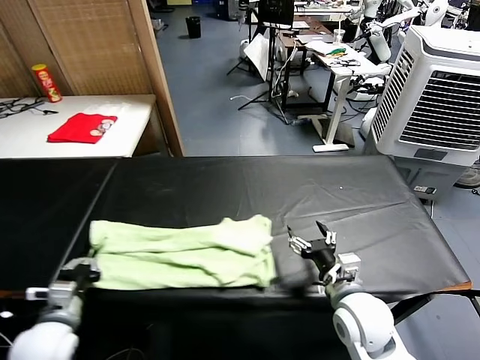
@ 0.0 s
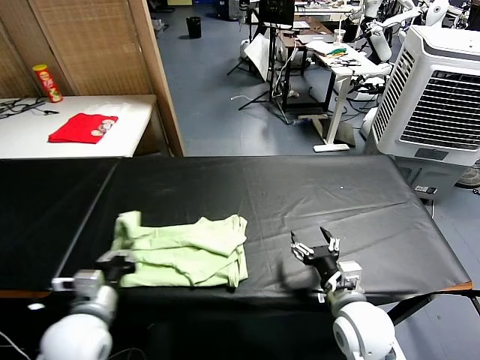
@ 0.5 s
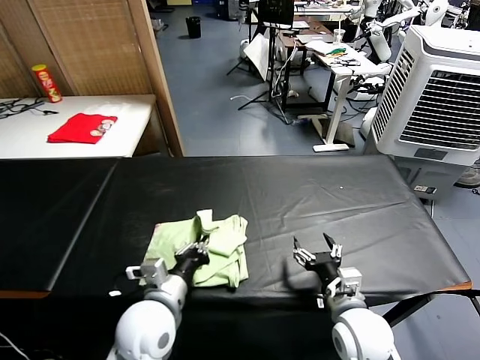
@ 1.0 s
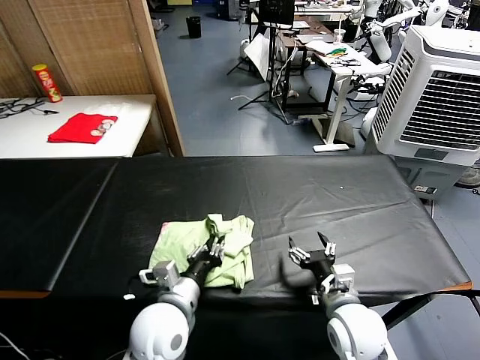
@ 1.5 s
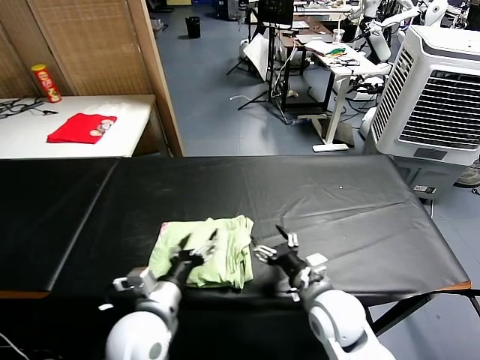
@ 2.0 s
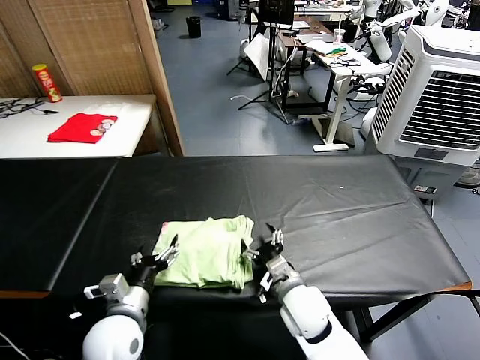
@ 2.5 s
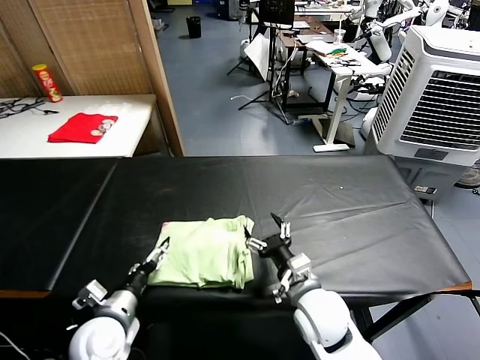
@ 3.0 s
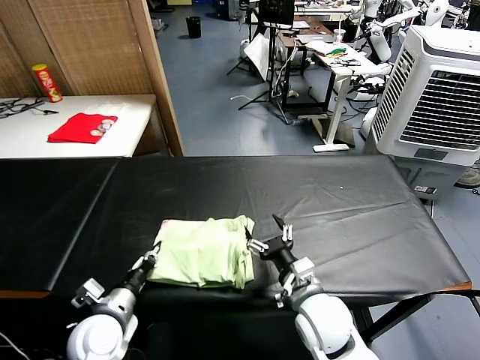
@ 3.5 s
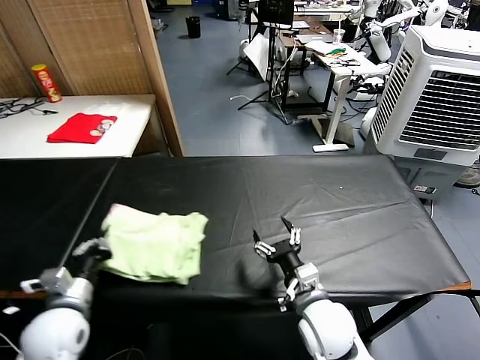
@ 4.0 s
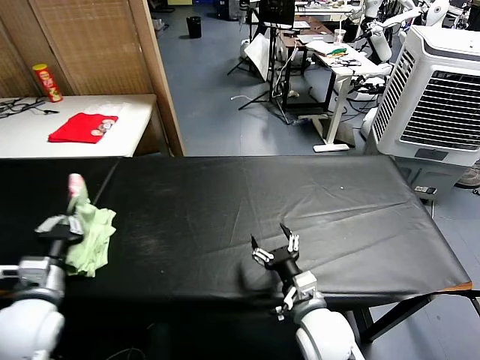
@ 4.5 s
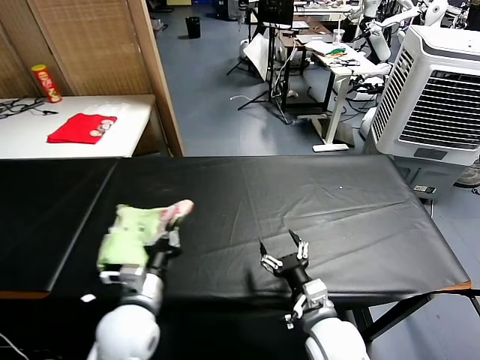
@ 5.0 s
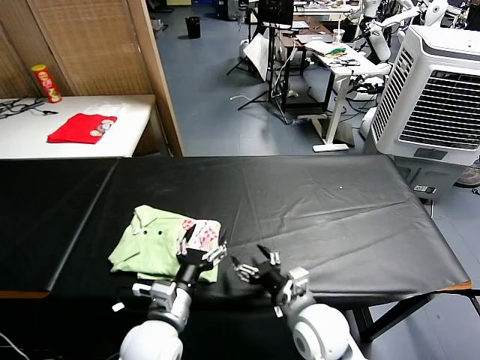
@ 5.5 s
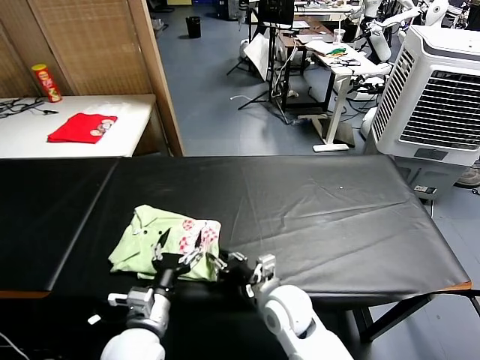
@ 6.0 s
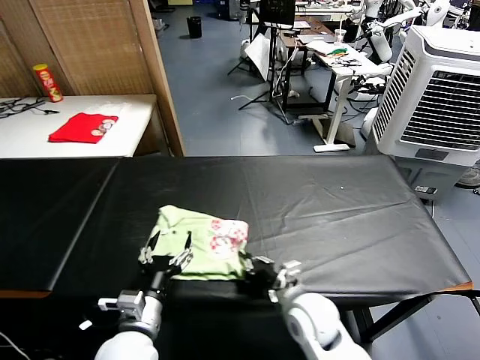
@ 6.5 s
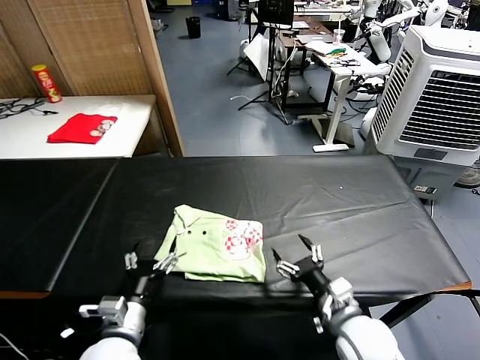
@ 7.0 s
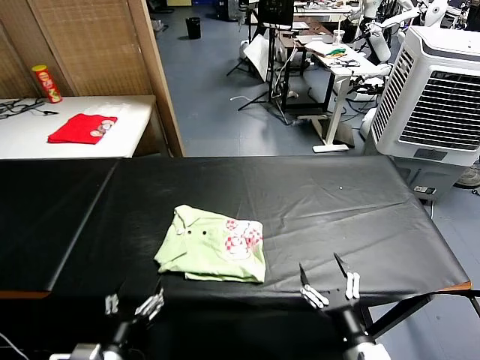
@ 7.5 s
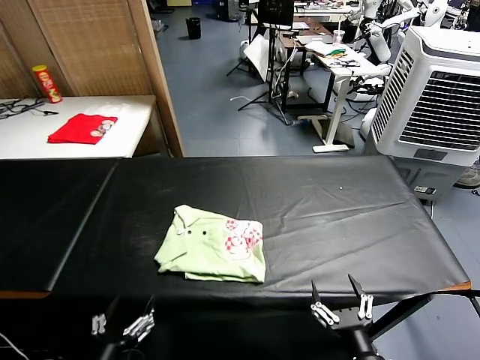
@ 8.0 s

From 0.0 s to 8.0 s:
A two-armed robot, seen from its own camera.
Task of the whole recording: fold and organize the clothes.
Step, from 0.0 s to 1.5 s: use the left gripper to drag the left edge of the fabric to the left and folds it over the right edge.
Step, from 2.0 s to 5.0 s: Flip the folded clothes over with left gripper.
Step, from 5.5 s to 6.5 s: Drag the clothes to the center of the table.
From 0.0 s to 2.0 s: The left gripper shifts some 20 cm to the right, and opens its fingers; the right gripper moves some 5 cm.
From 2.0 s to 4.0 s: The left gripper moves to the left, some 15 cm, and closes.
From 4.0 s to 6.0 s: The left gripper goes approximately 15 cm to the right, and opens its fingers, while the right gripper heads to the left, covering some 5 cm, and closes up.
From 6.0 s to 8.0 s: The right gripper travels backward and to the right by some 25 cm, and opens, while the left gripper travels backward and to the left by about 15 cm.

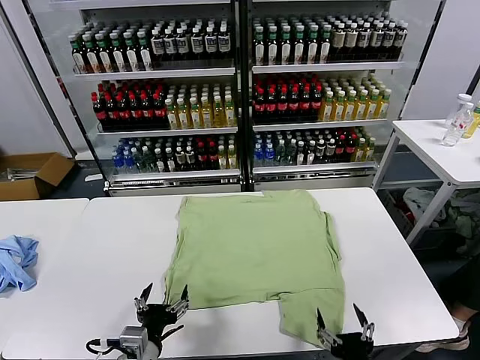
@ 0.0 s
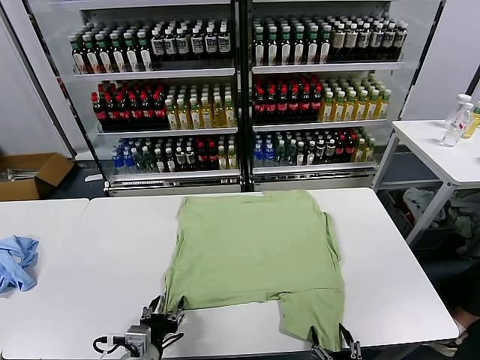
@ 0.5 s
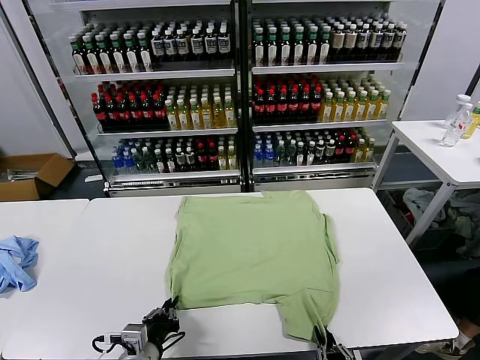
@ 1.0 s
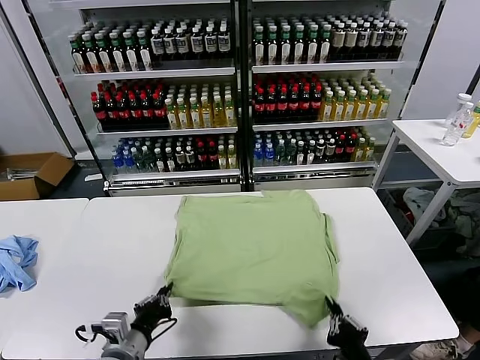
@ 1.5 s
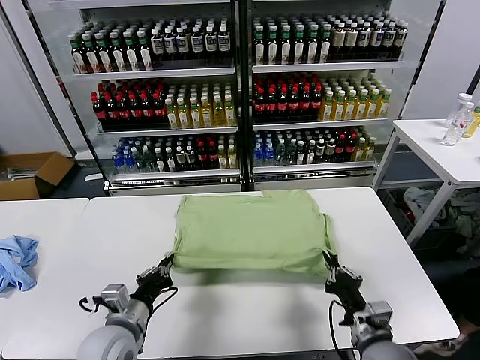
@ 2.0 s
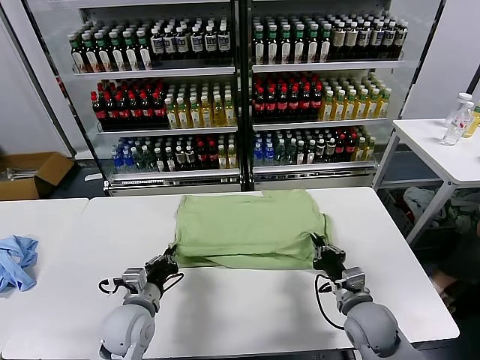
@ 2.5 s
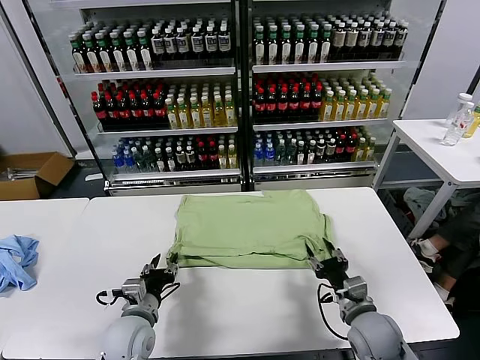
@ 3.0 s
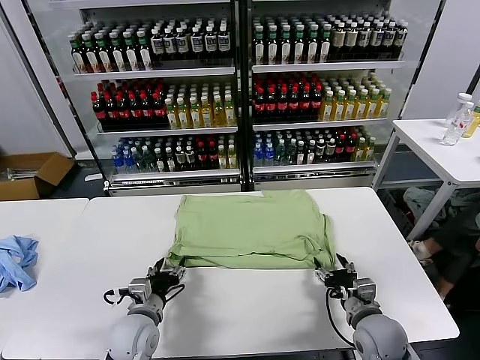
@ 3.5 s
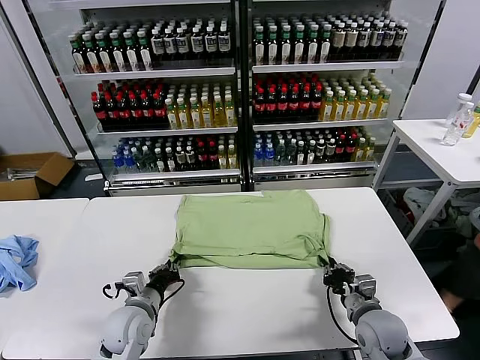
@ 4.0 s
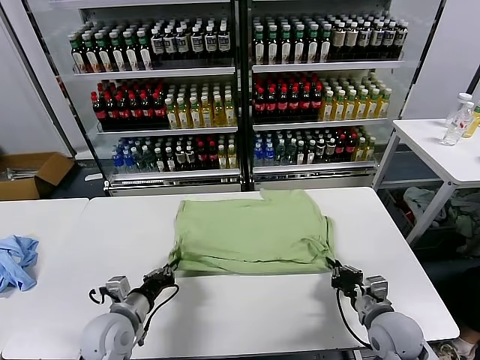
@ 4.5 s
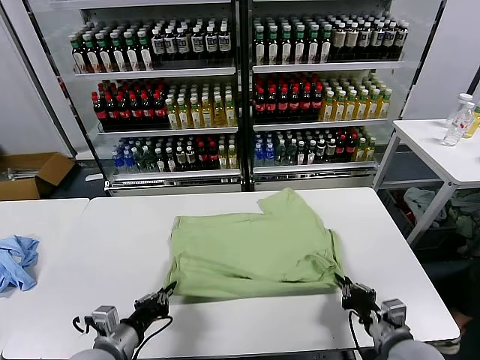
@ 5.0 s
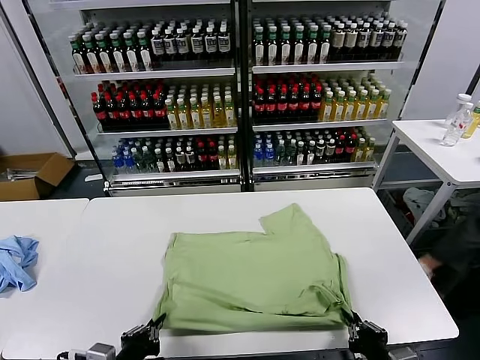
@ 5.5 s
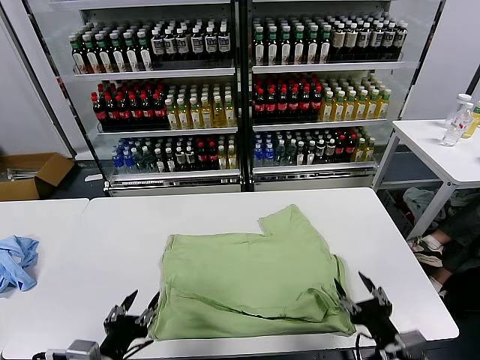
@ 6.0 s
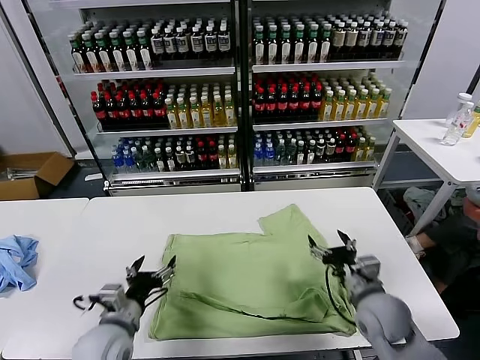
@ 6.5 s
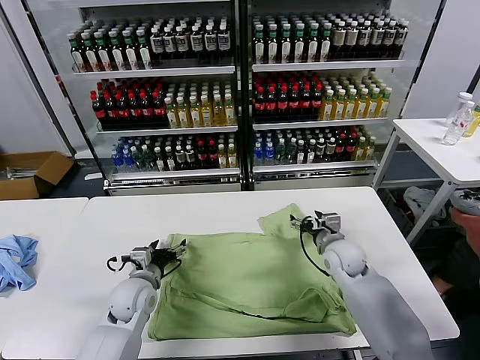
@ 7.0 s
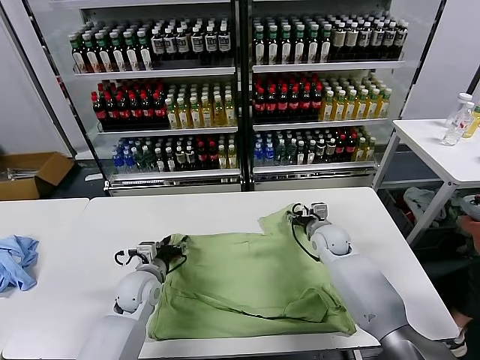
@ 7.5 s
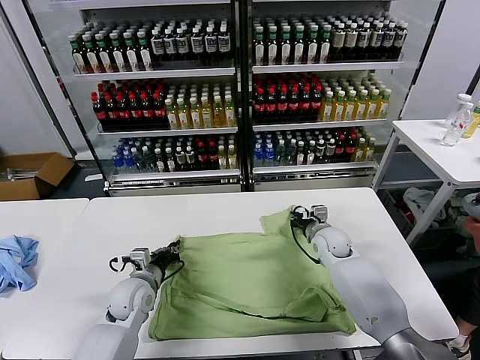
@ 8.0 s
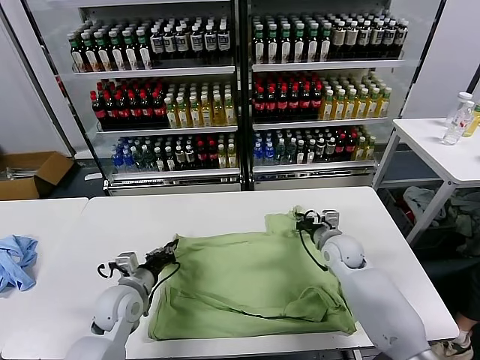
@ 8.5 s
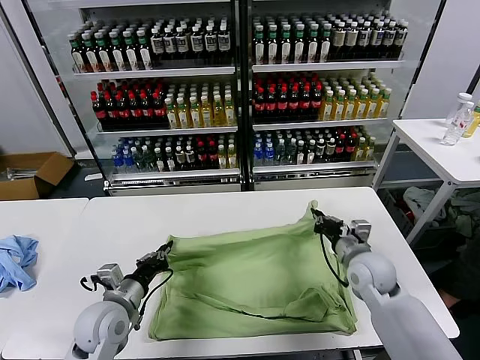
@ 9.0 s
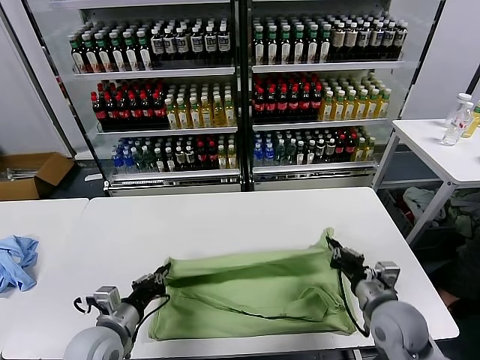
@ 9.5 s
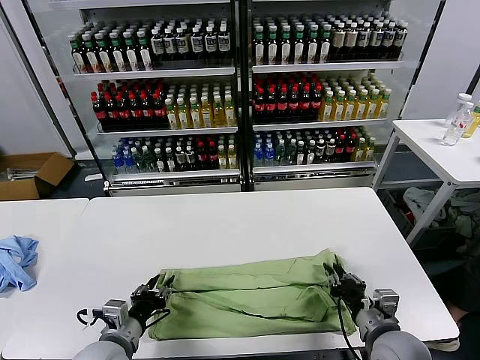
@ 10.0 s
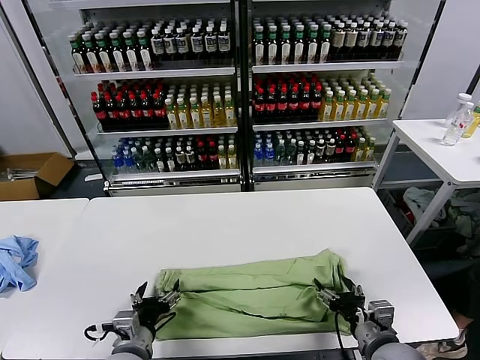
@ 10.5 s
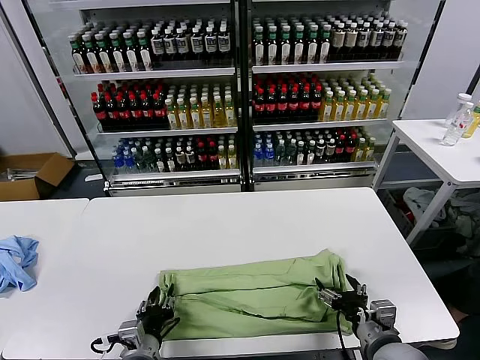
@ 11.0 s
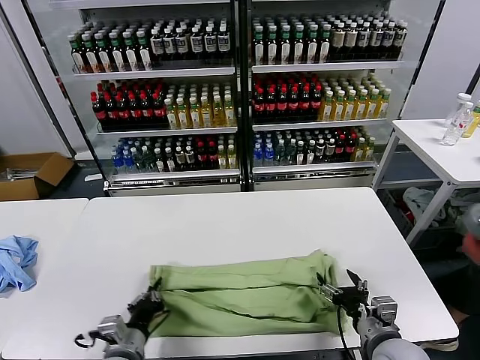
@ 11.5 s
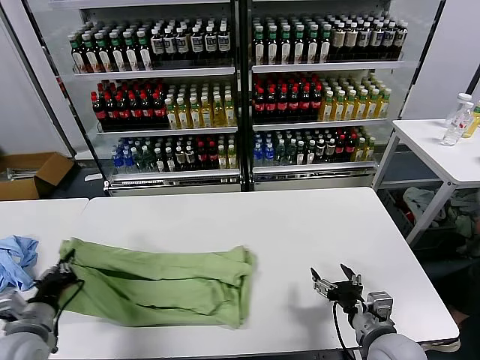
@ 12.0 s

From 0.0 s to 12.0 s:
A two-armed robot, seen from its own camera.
Task of the whole recording: fold and organize the clothes.
Step, from 0.0 s to 1.0 s: use both grippers simultaneously to clamp the lower edge of the clothing fabric.
Step, from 1.5 s to 2.5 s: use both grippers to drag the lower edge of the fabric forward and fold it over the upper edge.
Step, from 3.0 s to 5.5 s: Drag the clothes downward with both gripper.
Step, from 6.0 s to 8.0 s: use both grippers simultaneously to clamp the upper edge of the clothing fabric.
Step, from 8.5 s to 10.0 s: use both grippers to drag the upper edge of the fabric backward and fold it over the lower edge.
Step, from 10.5 s to 11.0 s: use the left gripper to clamp the left edge of the fabric.
From 2.0 s to 4.0 s: The left gripper shifts roughly 10 cm downward and forward, and opens, then closes once more; the right gripper ends up roughly 5 cm from where it was, and opens, then closes again.
From 4.0 s to 6.0 s: The grippers both shift backward and upward by about 15 cm. The left gripper opens its fingers, while the right gripper opens its fingers.
From 6.0 s to 8.0 s: The grippers both shift forward by some 30 cm. The right gripper closes its fingers, while the left gripper closes.
From 8.0 s to 10.0 s: The right gripper shifts roughly 30 cm backward, and opens. The left gripper travels backward by roughly 15 cm, and opens up.
From 10.0 s to 12.0 s: The left gripper shifts about 15 cm to the left, and closes its fingers, while the right gripper opens its fingers.

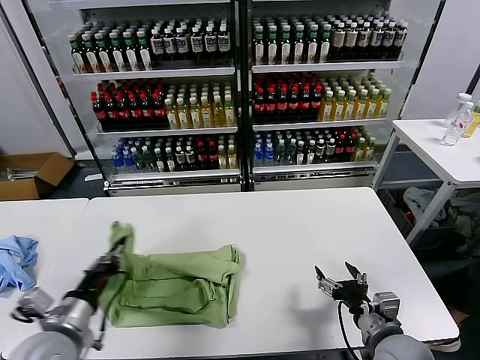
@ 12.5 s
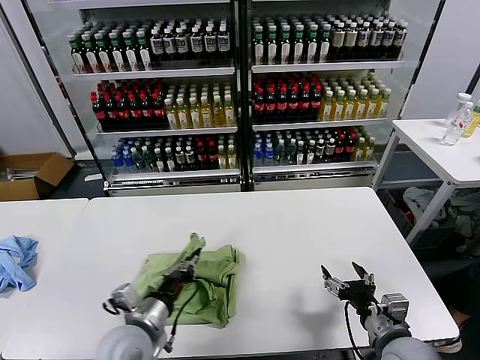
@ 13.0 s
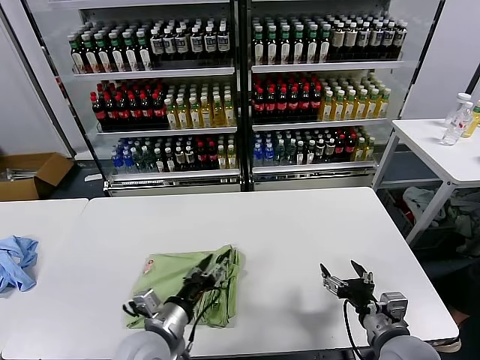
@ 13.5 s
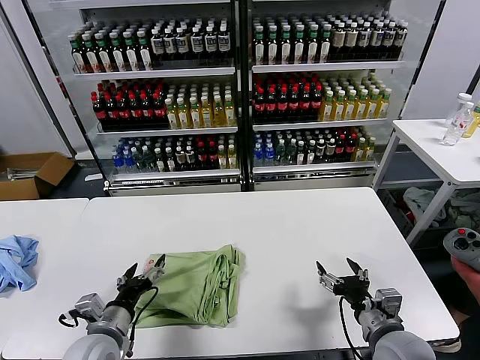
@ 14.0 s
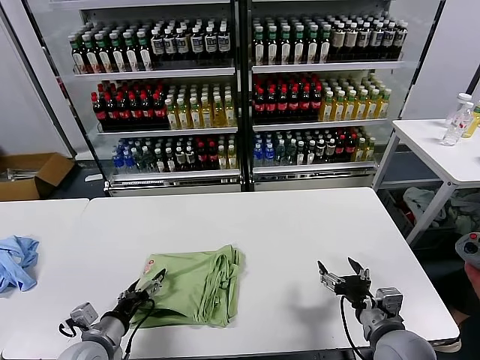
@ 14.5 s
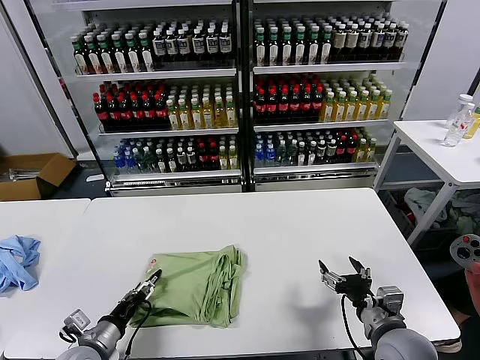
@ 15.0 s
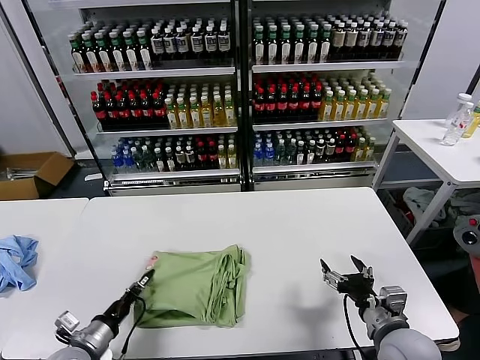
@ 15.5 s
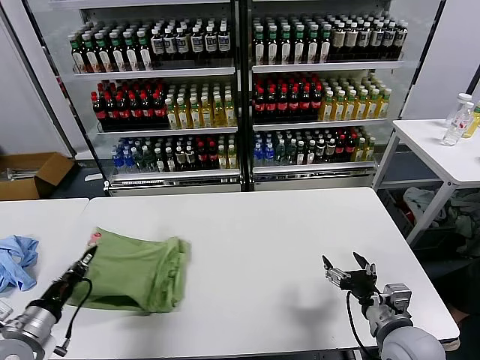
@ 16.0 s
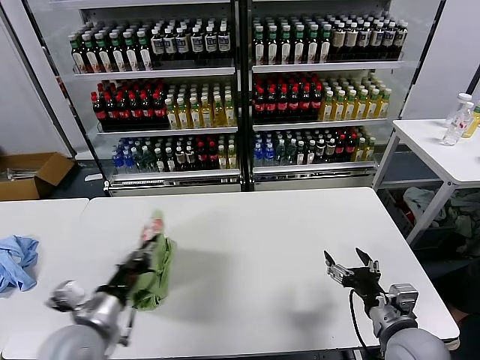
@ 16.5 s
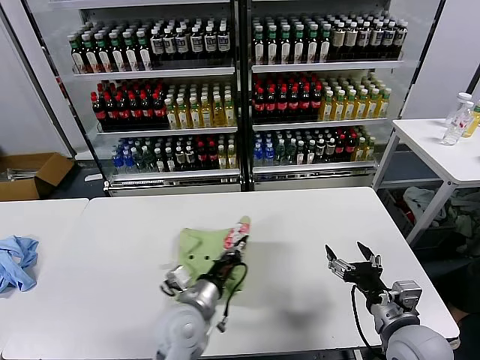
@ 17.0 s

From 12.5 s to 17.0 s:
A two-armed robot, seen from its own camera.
Task of the whole recording: fold and organize the clothes.
From 12.5 s to 14.5 s: The left gripper travels downward by some 10 cm, reaches roughly 15 cm to the right, then returns, and opens.
From 14.5 s to 17.0 s: The left gripper goes approximately 20 cm to the right, and closes its fingers.
